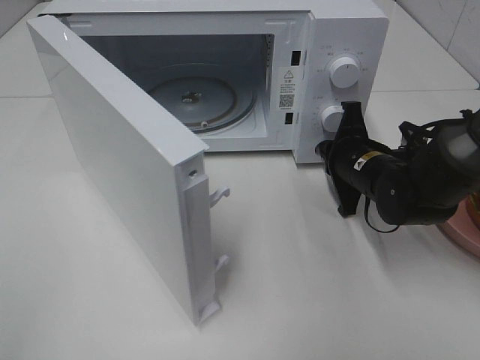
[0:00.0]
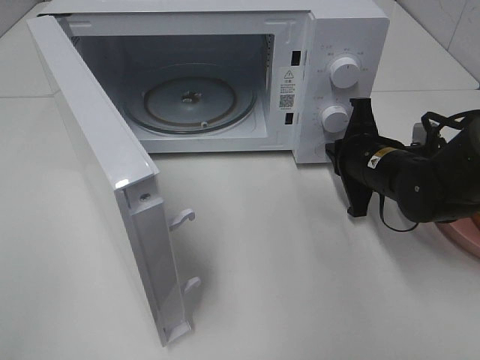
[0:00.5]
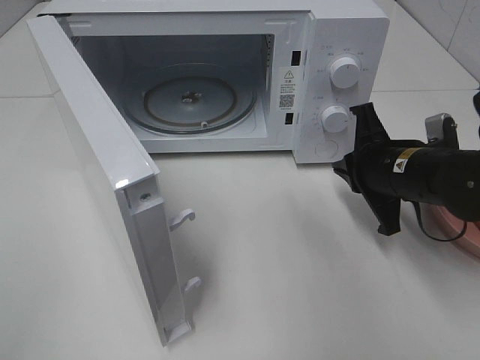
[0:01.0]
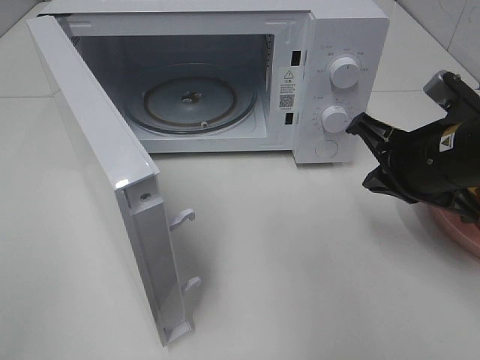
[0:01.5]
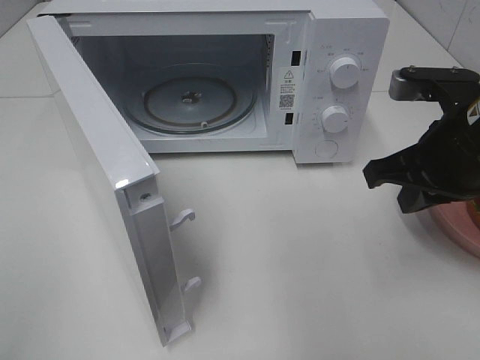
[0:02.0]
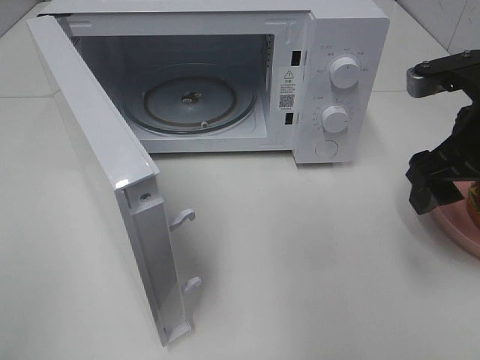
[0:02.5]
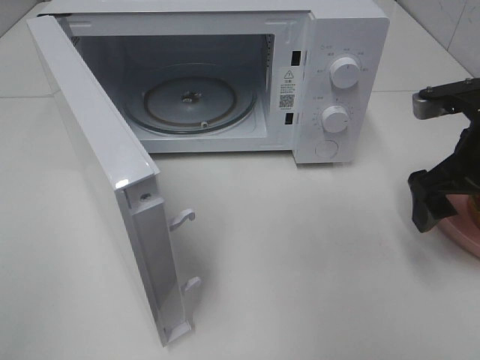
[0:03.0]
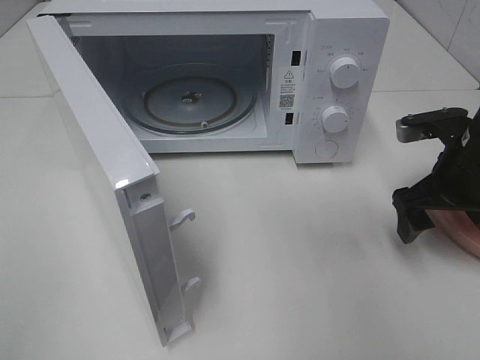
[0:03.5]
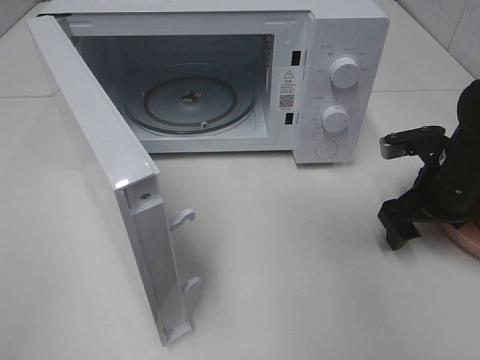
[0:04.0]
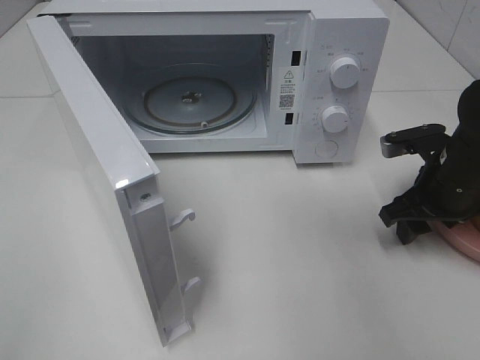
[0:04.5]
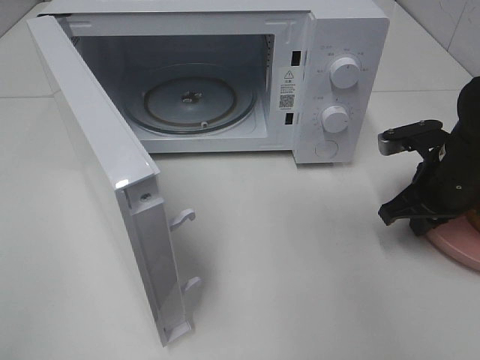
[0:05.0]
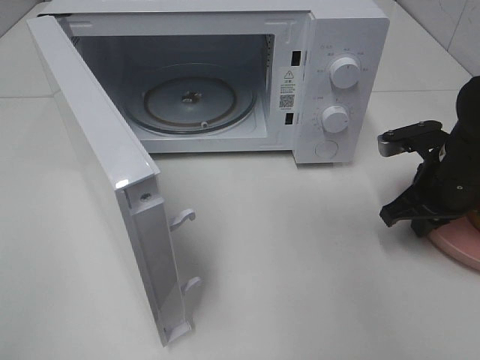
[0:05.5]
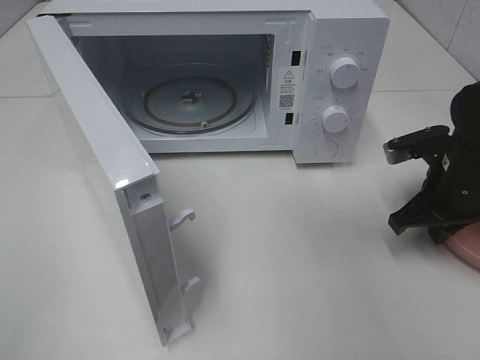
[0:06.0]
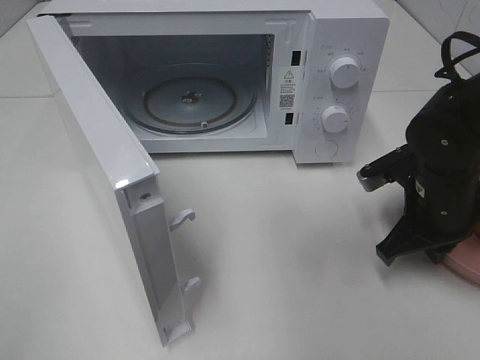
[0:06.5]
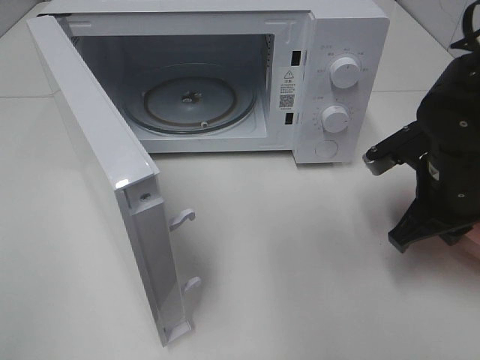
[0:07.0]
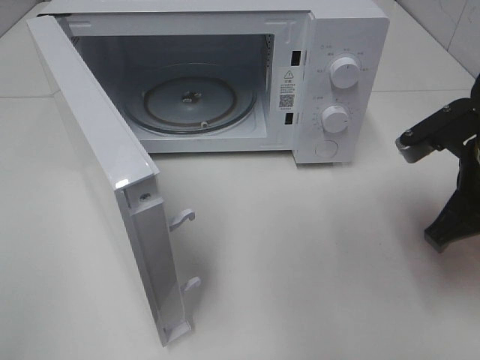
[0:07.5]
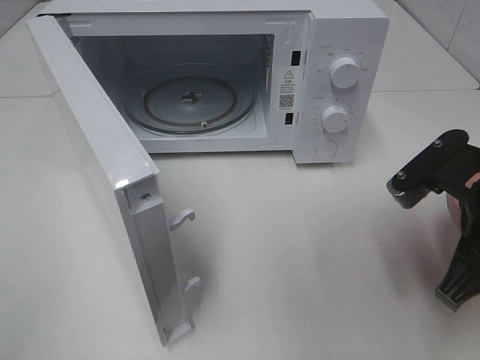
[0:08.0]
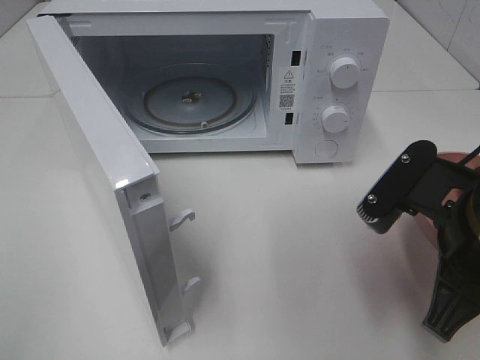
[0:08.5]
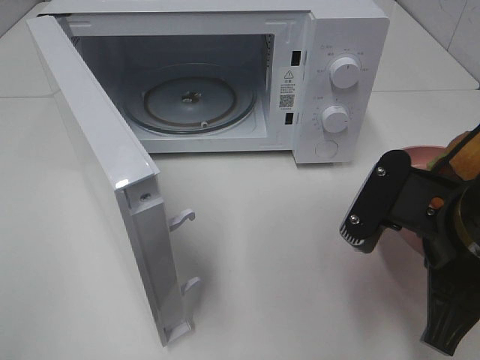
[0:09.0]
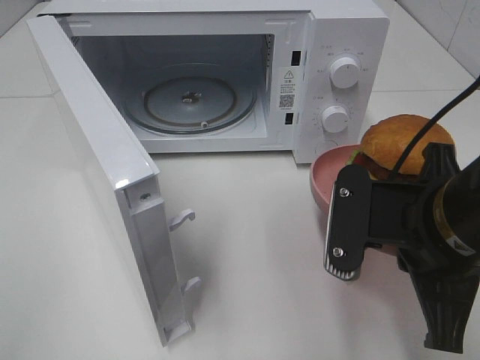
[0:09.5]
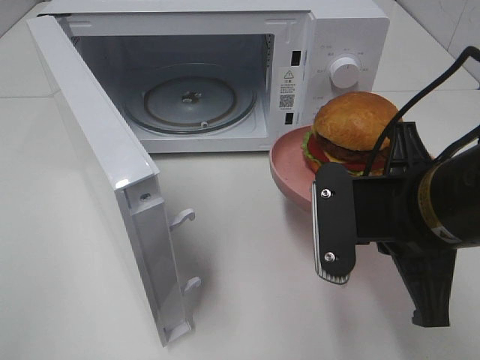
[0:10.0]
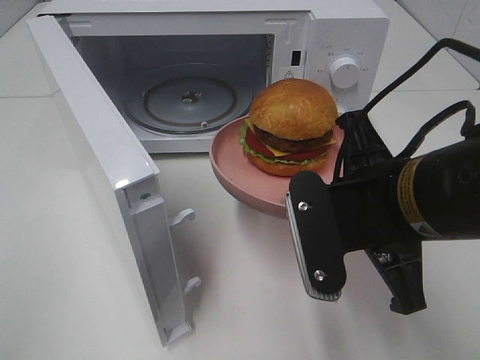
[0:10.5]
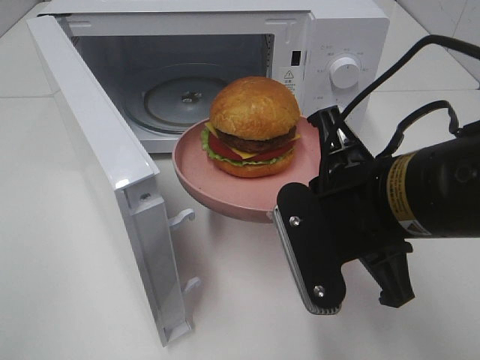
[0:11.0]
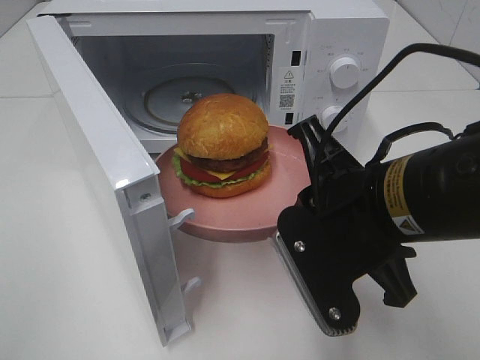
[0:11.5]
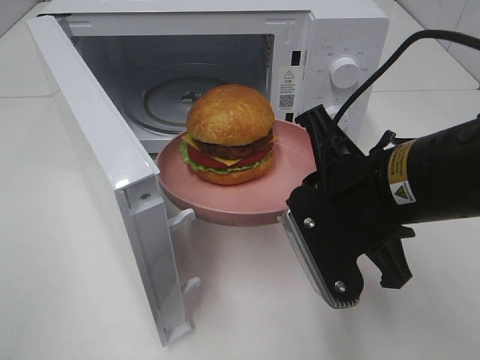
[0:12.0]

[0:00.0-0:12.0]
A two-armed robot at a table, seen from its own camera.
Task of the whole recording: Heat the burger.
Step, 1.0 to 4.5 s: Right hand: grab the plate with the hamburger.
0.0 to 2.0 s: The right gripper goes some 15 cm upward and backward.
2.0 to 4.0 s: The right gripper shifts about 10 cm downward and forward, and opens up.
4.0 to 6.0 s: The right gripper closes.
6.0 to 8.0 s: The right gripper moves backward, upward and to the left, some 15 cm.
8.0 to 10.0 s: The right gripper goes some 5 cm to the left.

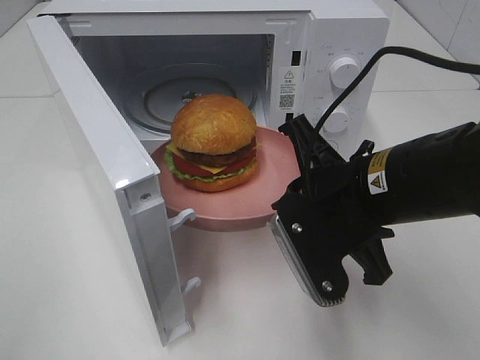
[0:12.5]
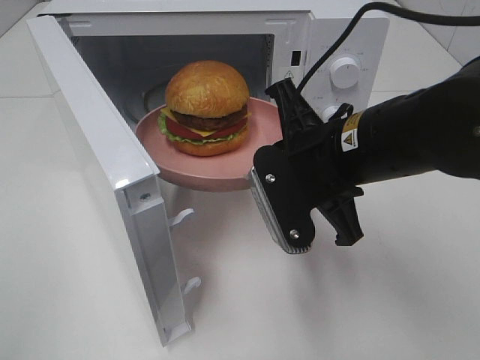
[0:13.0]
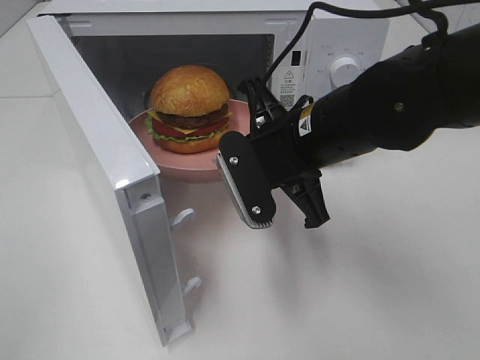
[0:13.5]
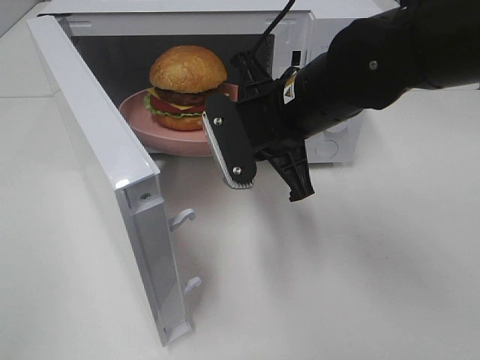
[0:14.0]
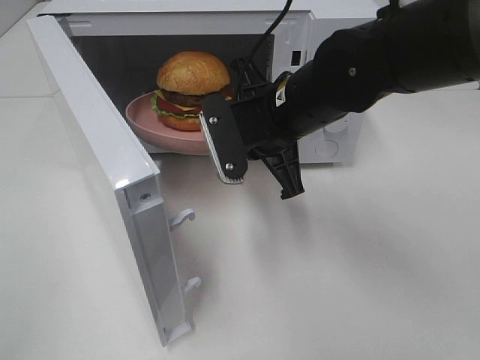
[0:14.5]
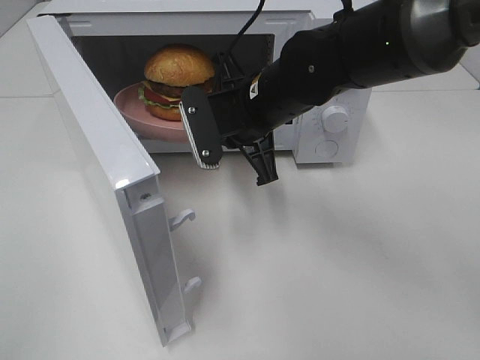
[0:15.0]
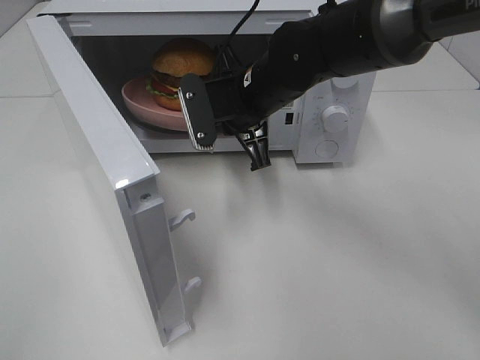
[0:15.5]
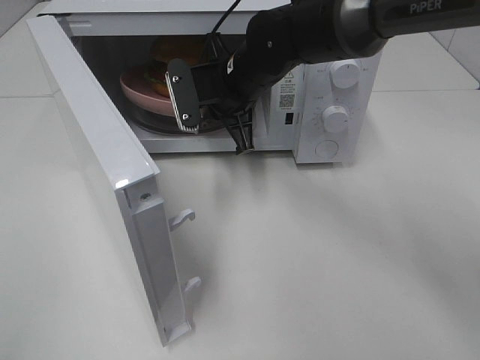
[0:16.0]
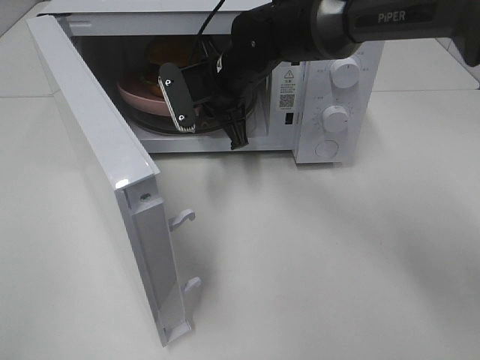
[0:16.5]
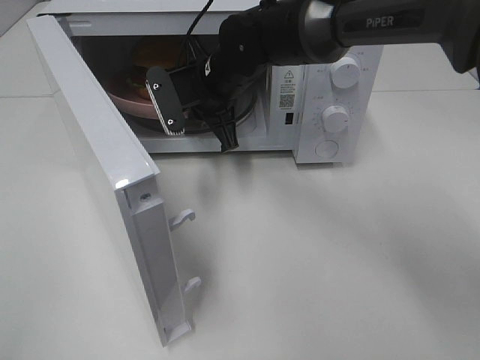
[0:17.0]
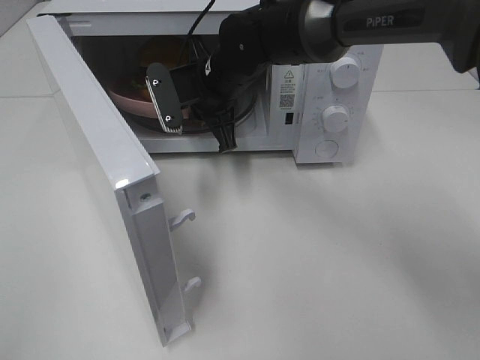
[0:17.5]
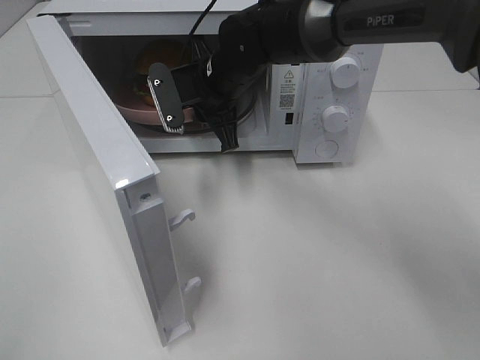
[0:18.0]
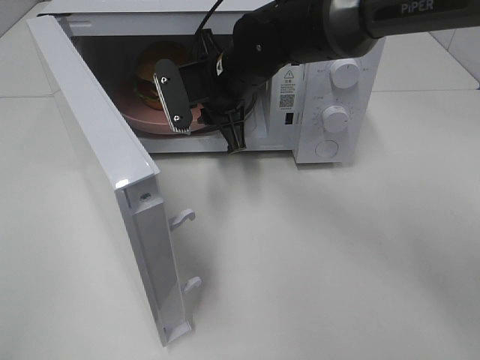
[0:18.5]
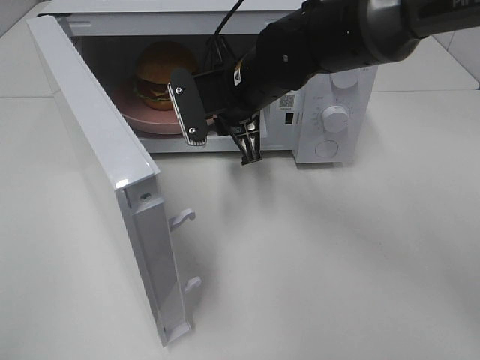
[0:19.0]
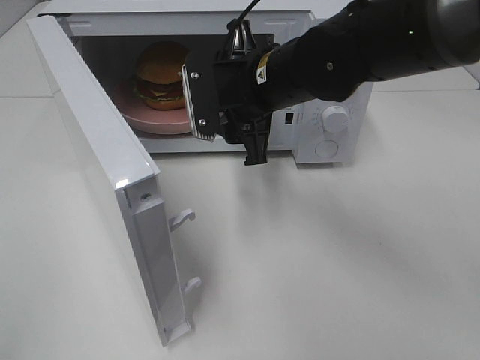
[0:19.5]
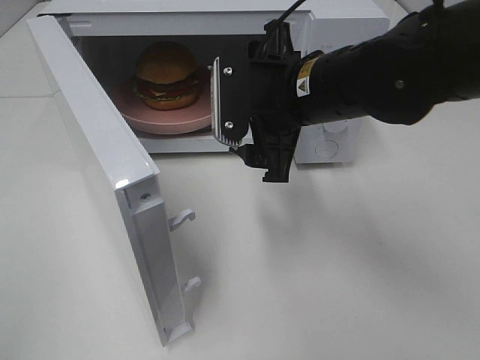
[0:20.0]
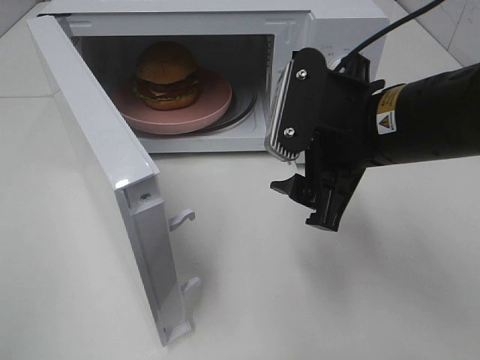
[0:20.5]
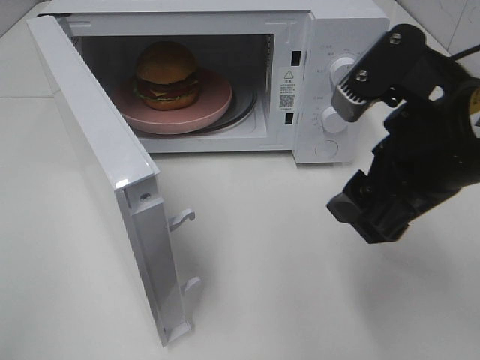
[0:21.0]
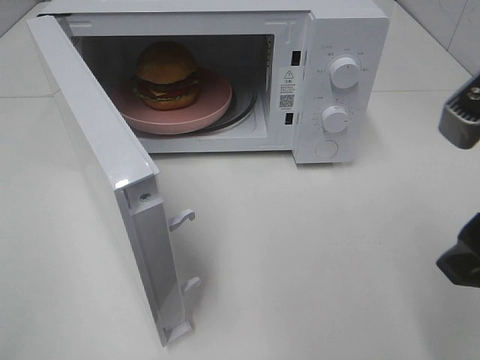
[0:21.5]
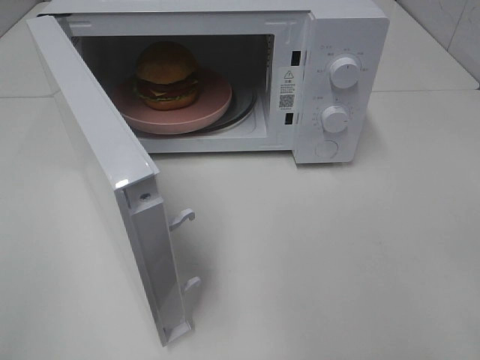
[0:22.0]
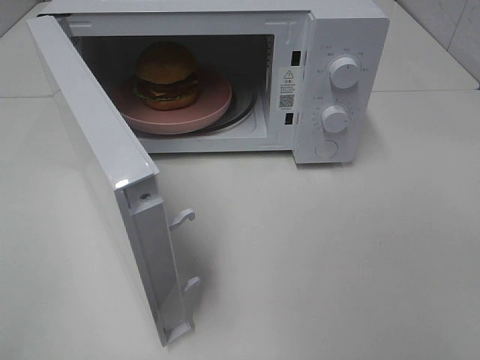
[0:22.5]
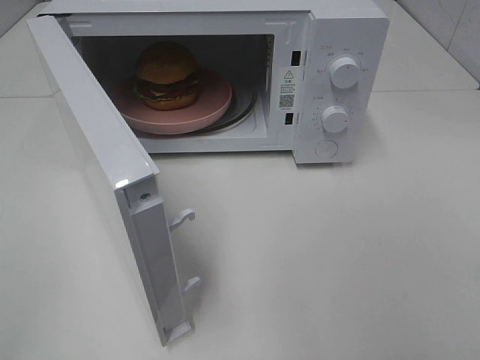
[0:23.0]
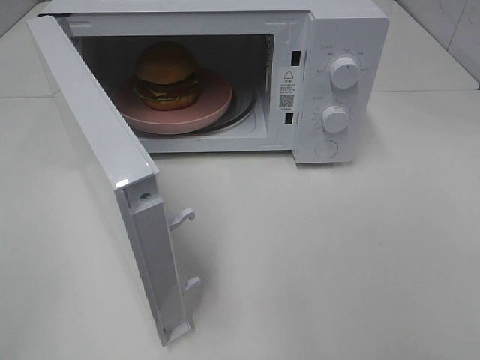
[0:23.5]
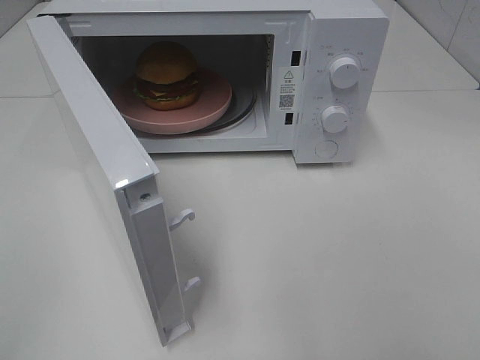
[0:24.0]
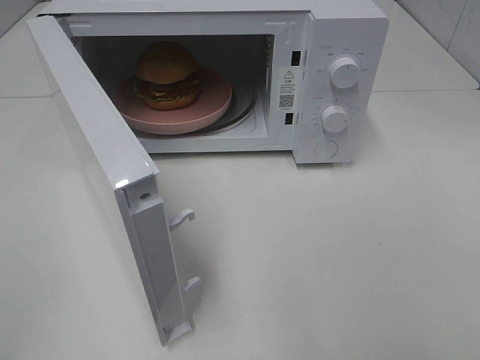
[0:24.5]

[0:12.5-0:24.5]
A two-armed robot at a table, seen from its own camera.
Task of the whole recording: Heat the burger.
Step, 12.5 to 18.0 s: Right hand: place the plate in the microwave.
12.5 to 14.5 s: The right gripper is displaced forward and to the left by some 10 cm.
14.5 to 16.5 s: The right gripper travels forward and to the left by roughly 10 cm.
16.5 to 18.5 s: The grippers stay close to where they were, moving slightly.
18.5 to 20.5 s: The right gripper is displaced backward and to the right by approximately 20 cm, and opens its fingers.
20.5 to 22.5 s: The right gripper heads backward, to the right and upward, covering about 30 cm.

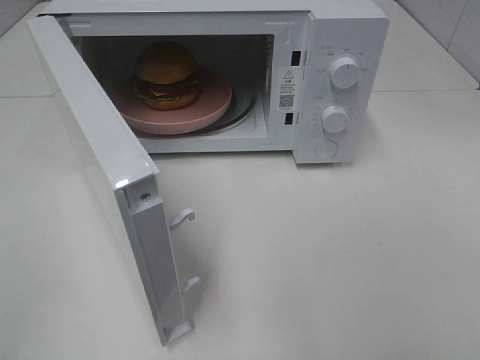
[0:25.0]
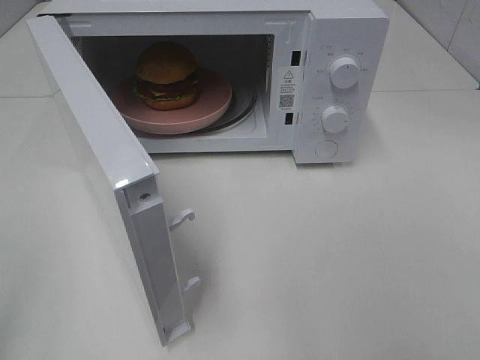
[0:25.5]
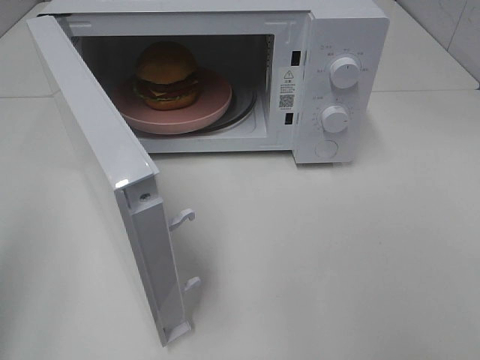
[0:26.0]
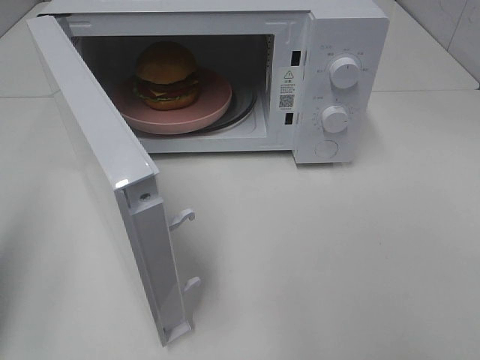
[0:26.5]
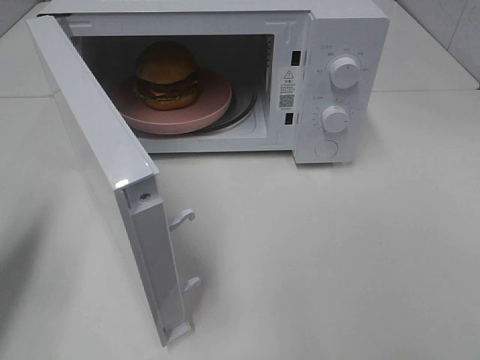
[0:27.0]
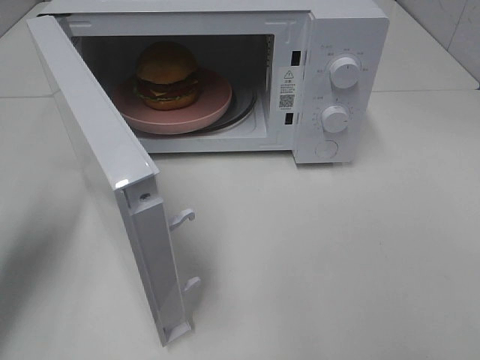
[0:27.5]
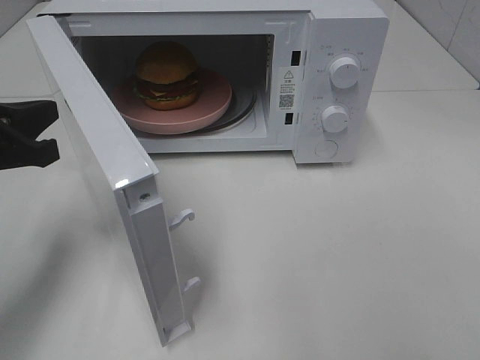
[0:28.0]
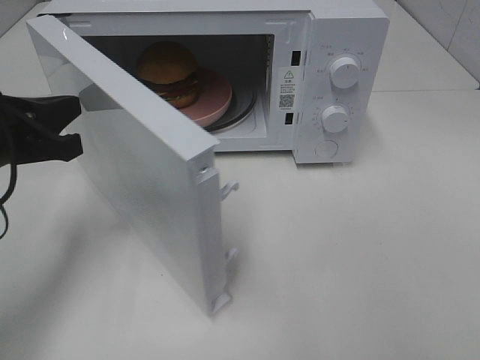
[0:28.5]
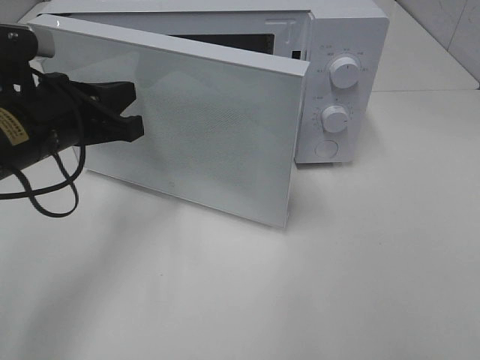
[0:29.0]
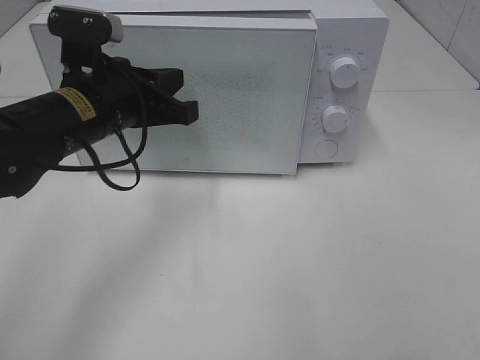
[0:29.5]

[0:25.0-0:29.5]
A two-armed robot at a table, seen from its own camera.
Task of the whole recording: Heat the burger.
25.0 to 27.0 s: The left gripper heads forward, covering roughly 20 cm, and closes up.
27.0 to 29.5 s: The left gripper moves to the right and forward, some 20 cm.
